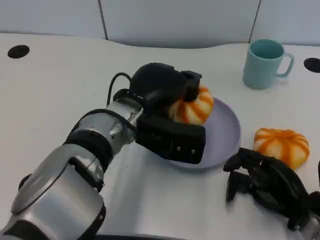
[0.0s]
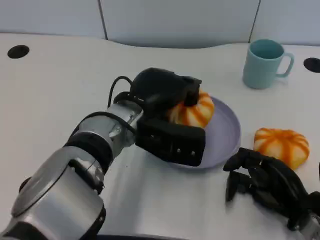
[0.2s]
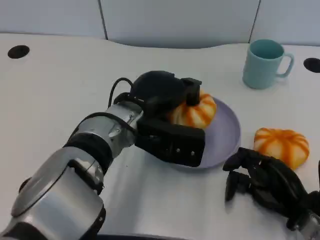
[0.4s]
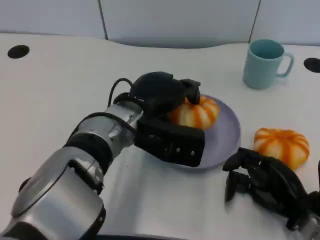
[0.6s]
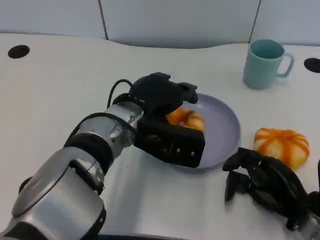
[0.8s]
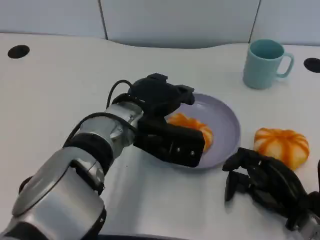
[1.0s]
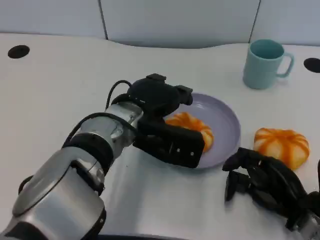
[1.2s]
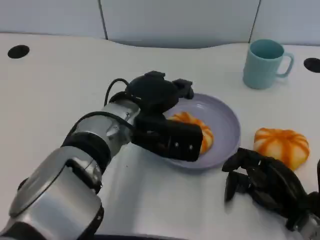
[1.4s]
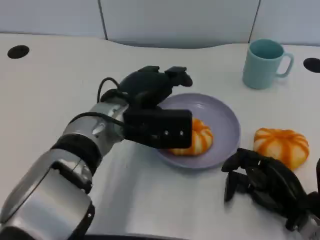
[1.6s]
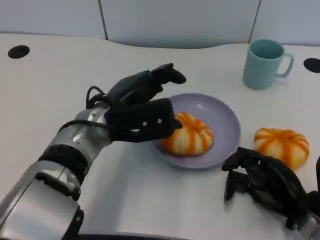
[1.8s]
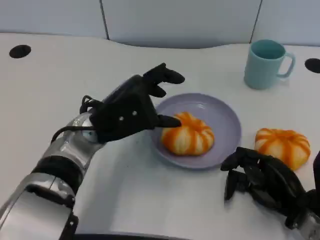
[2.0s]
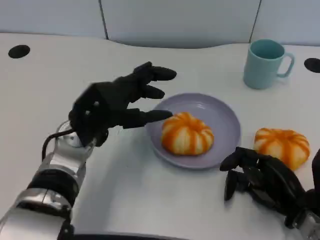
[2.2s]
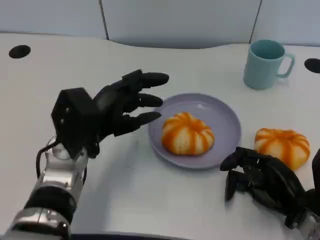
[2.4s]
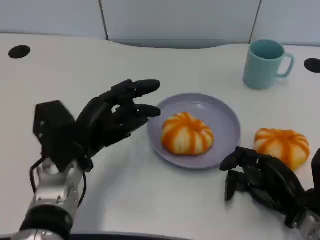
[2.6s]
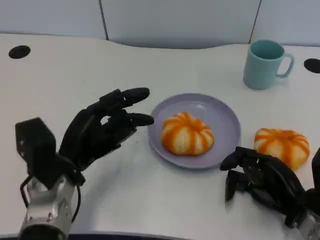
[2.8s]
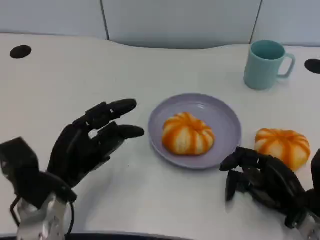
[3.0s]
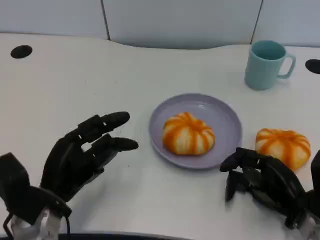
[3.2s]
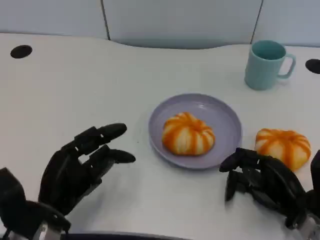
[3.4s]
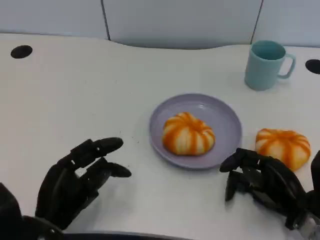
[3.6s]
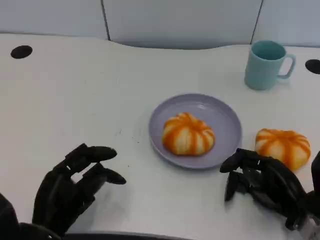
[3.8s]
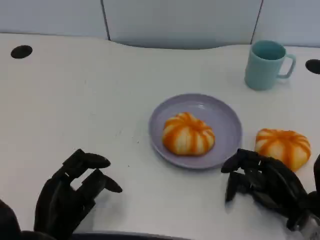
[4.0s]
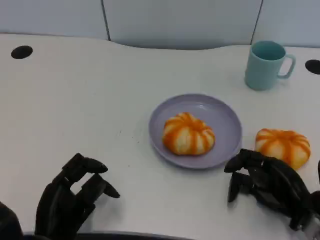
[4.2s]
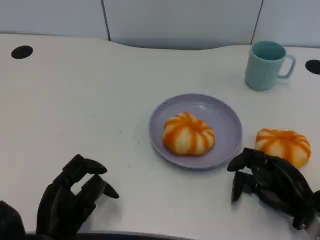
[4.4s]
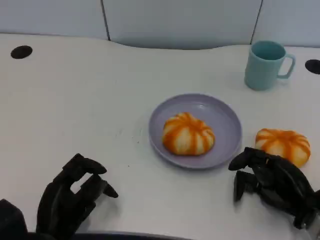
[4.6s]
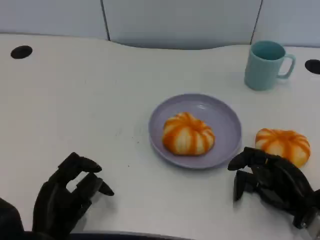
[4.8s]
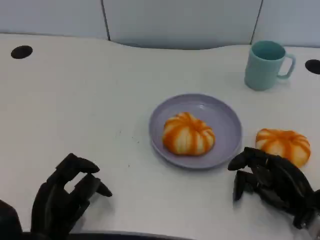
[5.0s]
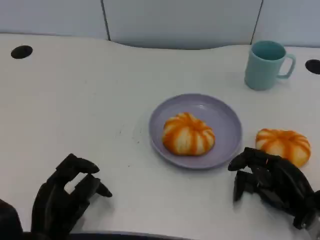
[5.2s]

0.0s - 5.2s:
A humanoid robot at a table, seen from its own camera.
Task of the whole recording: Grasp the bread from the table and place it into the plate.
1.8s - 3.4s: The left hand is displaced backward, to the left and downward by roughly 15 cm.
3.4s - 5.2s: The hands move only a little.

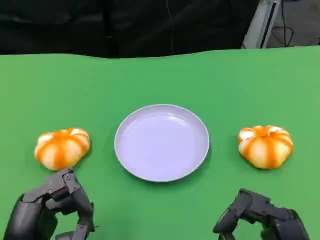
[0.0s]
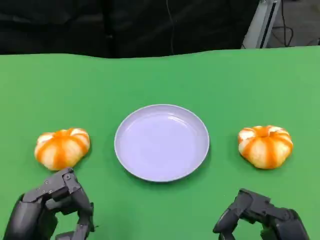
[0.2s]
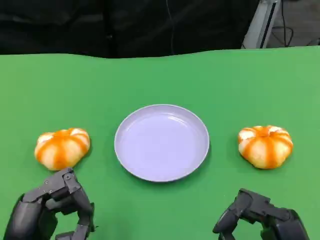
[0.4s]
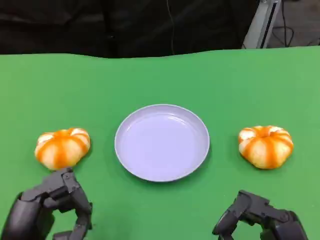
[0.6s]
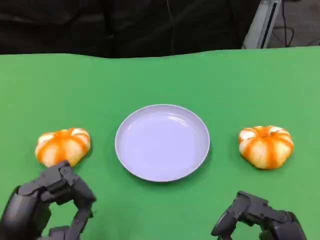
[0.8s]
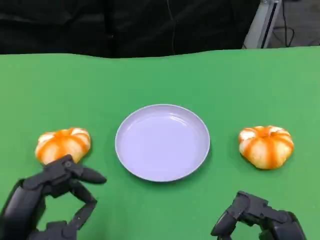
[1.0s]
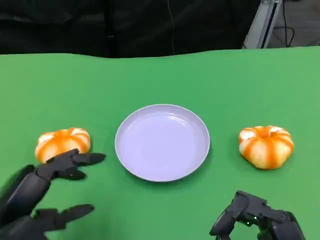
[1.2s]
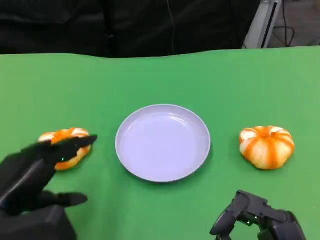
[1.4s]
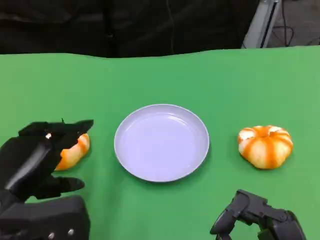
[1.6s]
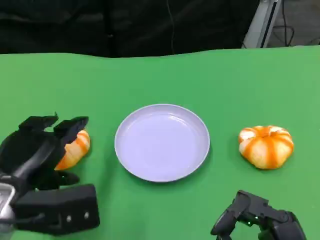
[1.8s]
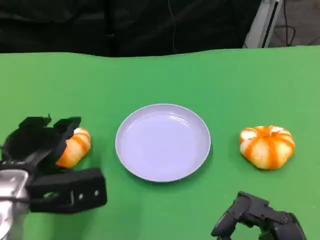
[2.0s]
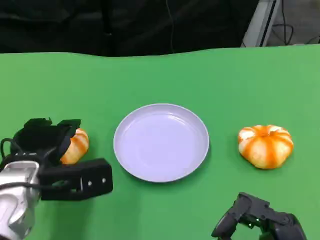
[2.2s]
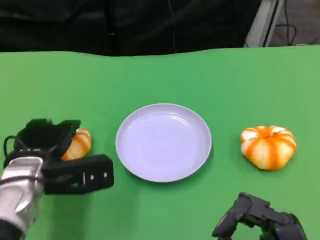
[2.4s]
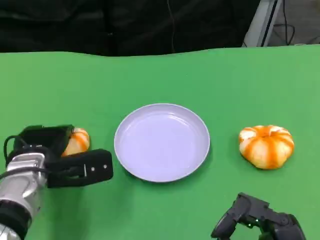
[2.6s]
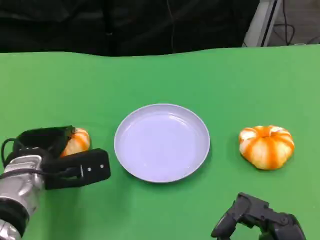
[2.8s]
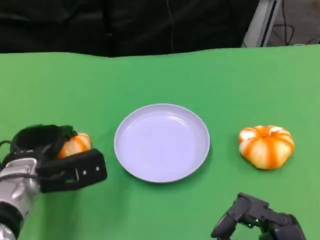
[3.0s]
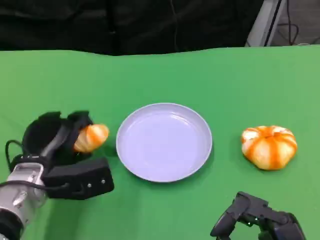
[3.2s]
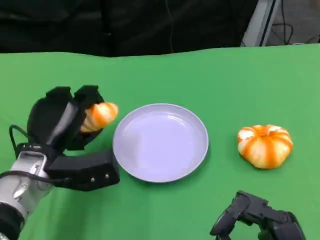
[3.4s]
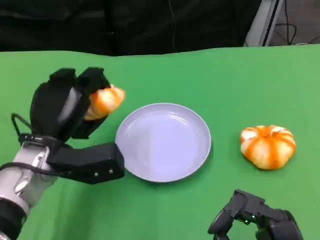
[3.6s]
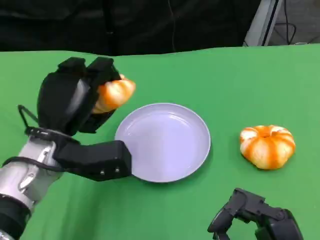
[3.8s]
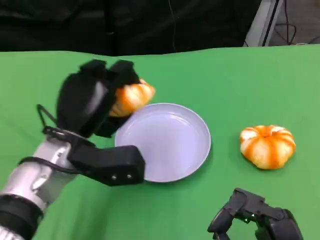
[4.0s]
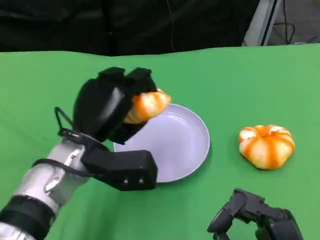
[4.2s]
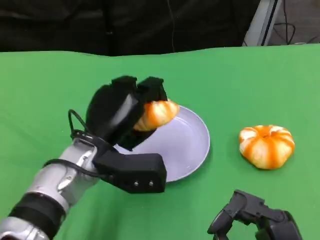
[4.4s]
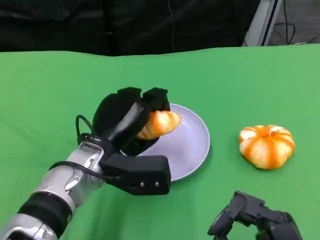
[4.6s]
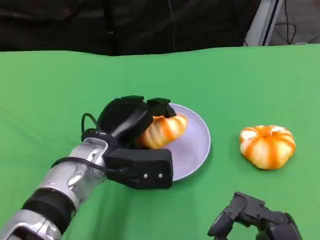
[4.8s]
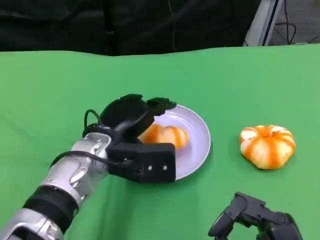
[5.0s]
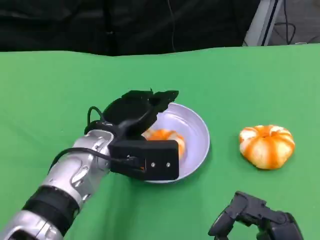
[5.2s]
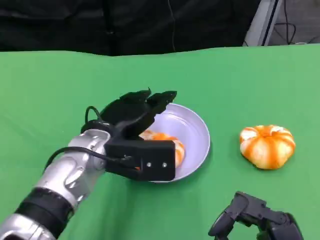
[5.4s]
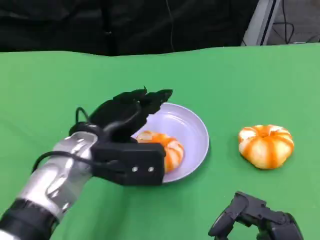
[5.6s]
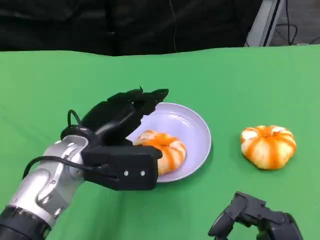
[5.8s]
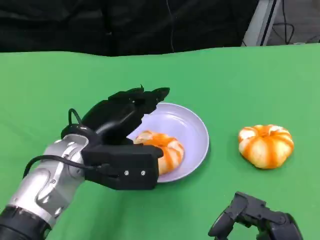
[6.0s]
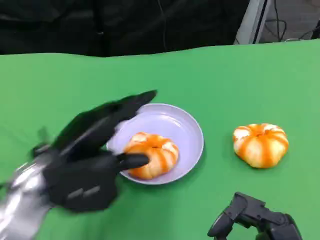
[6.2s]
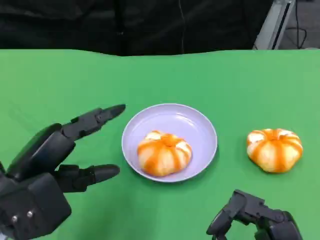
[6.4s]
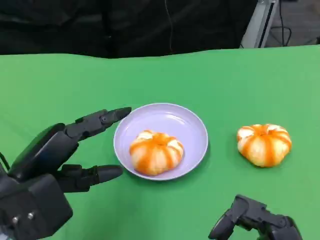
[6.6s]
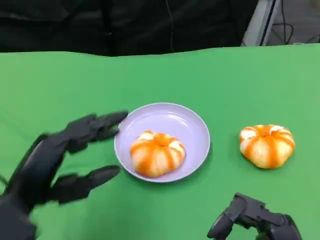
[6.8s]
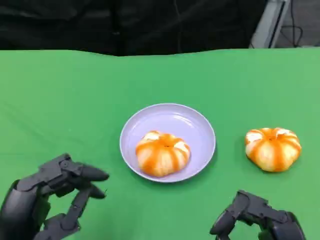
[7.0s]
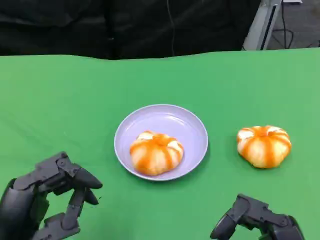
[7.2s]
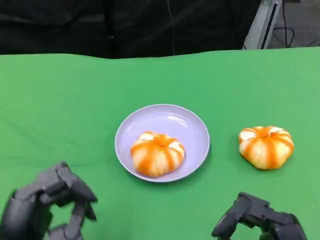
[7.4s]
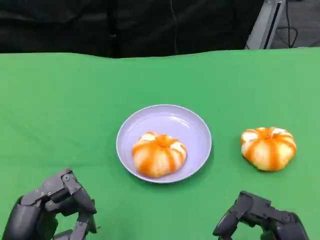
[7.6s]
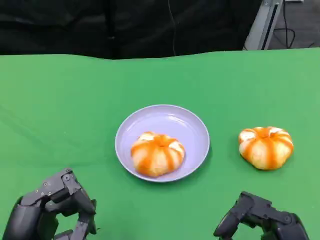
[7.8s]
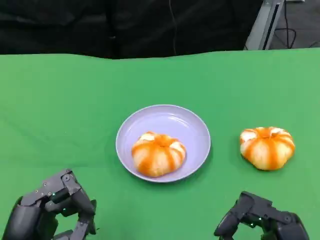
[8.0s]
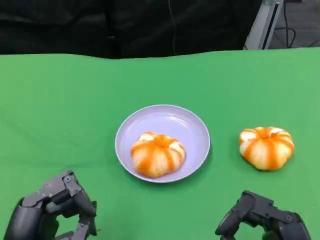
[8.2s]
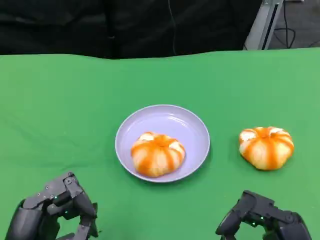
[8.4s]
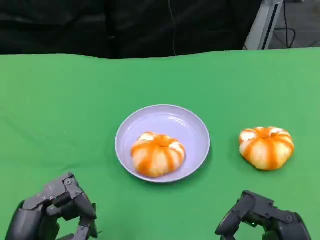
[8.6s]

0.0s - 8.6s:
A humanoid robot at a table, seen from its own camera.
Task of the whole recording: Grasp the bread from the table and place it into the plate.
0.0s - 1.4s: The left hand goes roughly 5 cm forward.
1.4s - 2.8s: The left hand shifts roughly 15 cm forward and downward.
2.8s - 4.4s: The left hand is displaced to the right by some 10 cm.
5.8s - 7.2s: The left hand moves backward and to the left, about 15 cm.
7.2s - 8.6s: The hands stay close to where they were, moving slightly.

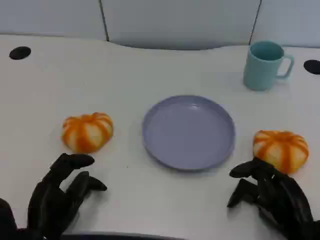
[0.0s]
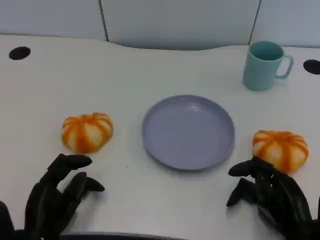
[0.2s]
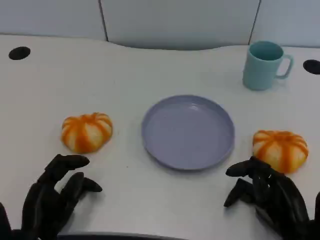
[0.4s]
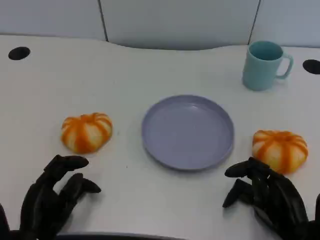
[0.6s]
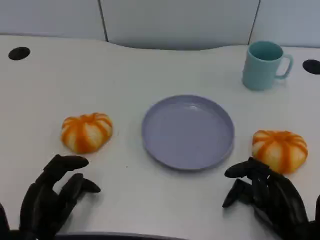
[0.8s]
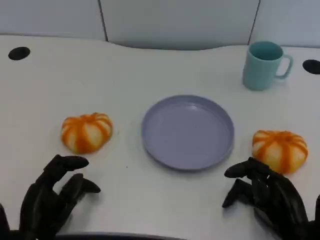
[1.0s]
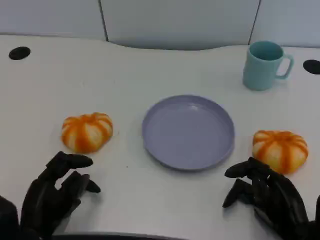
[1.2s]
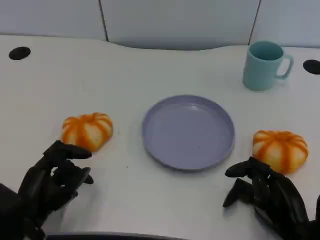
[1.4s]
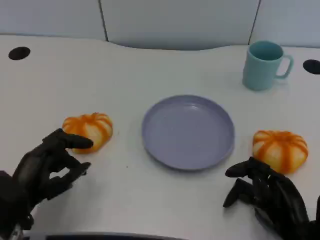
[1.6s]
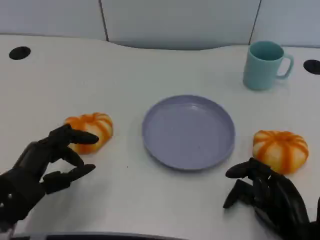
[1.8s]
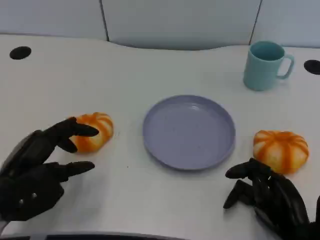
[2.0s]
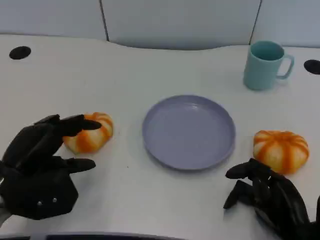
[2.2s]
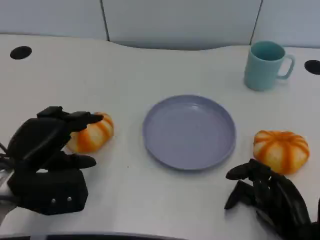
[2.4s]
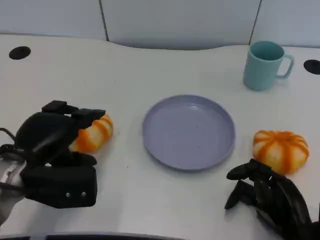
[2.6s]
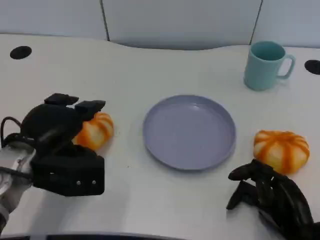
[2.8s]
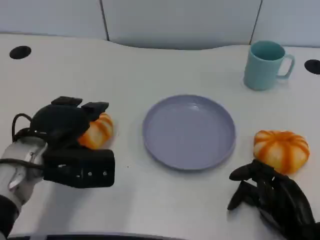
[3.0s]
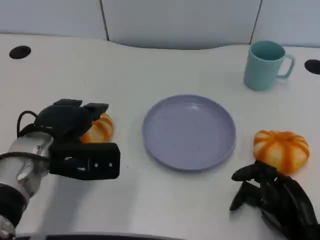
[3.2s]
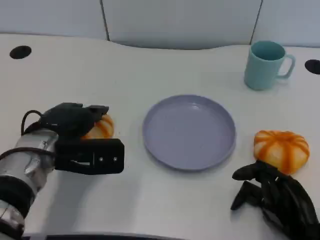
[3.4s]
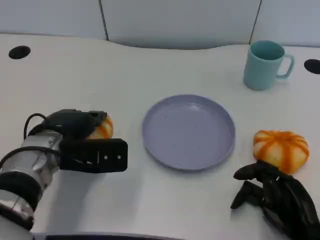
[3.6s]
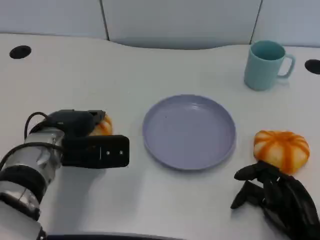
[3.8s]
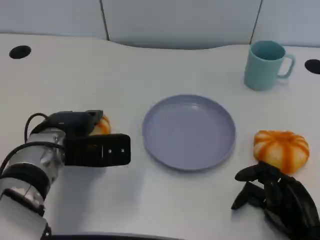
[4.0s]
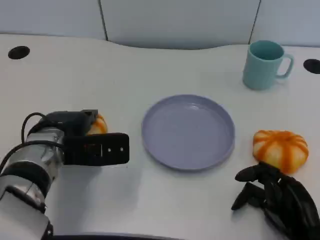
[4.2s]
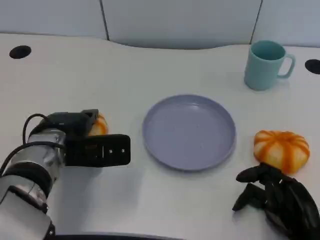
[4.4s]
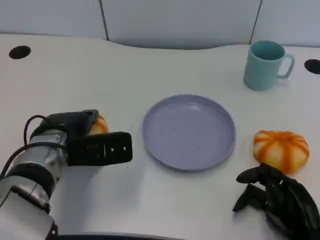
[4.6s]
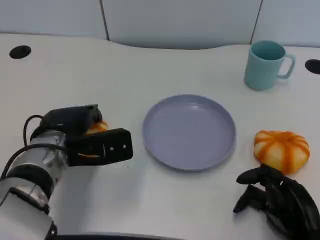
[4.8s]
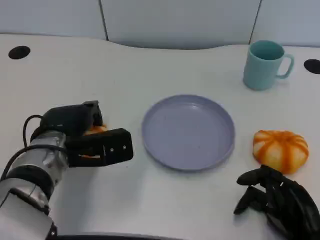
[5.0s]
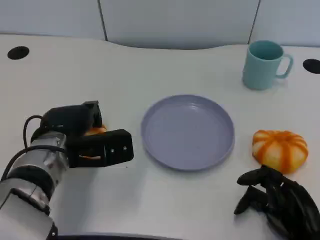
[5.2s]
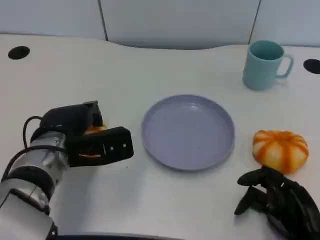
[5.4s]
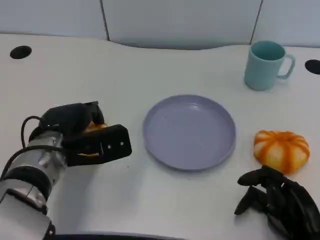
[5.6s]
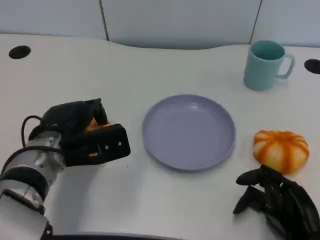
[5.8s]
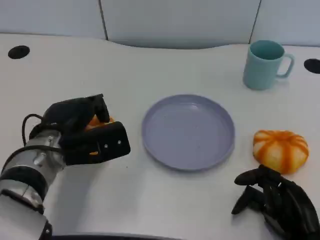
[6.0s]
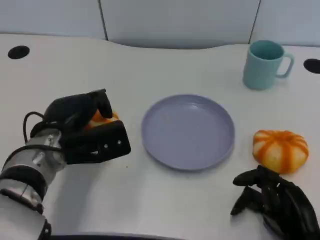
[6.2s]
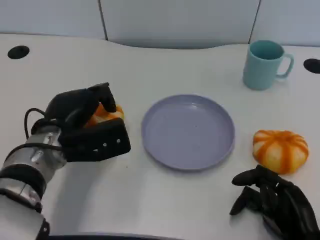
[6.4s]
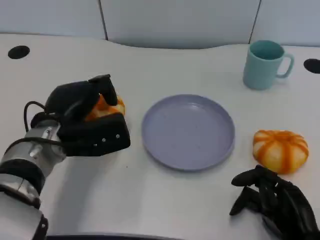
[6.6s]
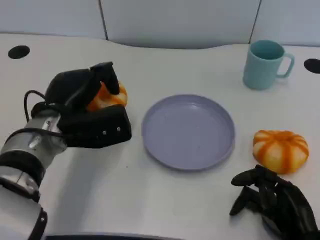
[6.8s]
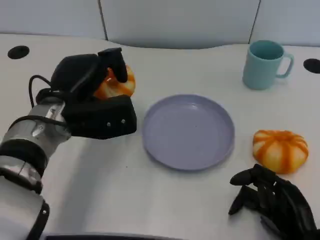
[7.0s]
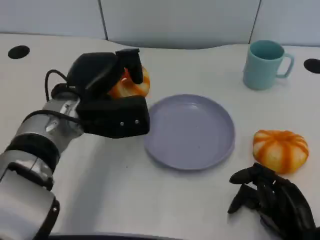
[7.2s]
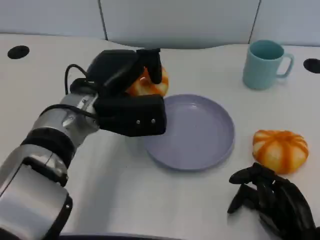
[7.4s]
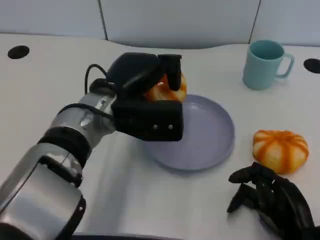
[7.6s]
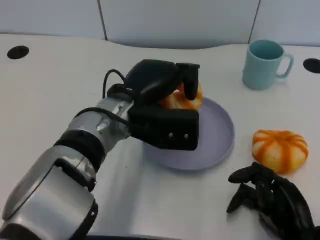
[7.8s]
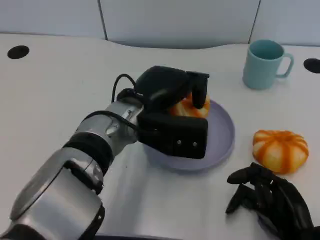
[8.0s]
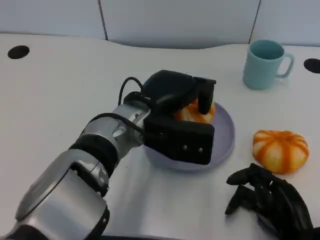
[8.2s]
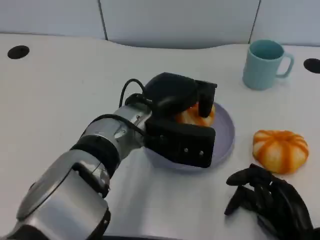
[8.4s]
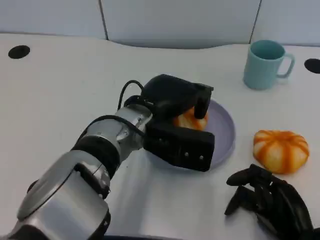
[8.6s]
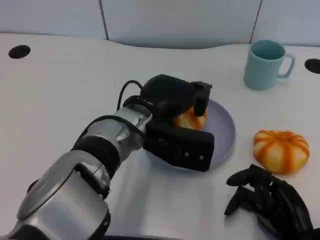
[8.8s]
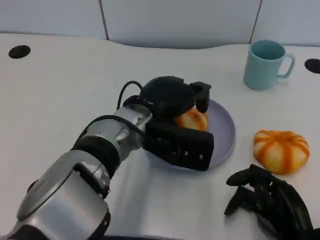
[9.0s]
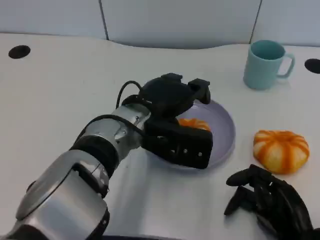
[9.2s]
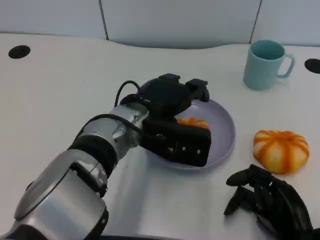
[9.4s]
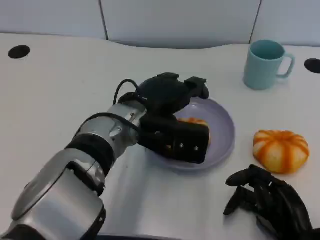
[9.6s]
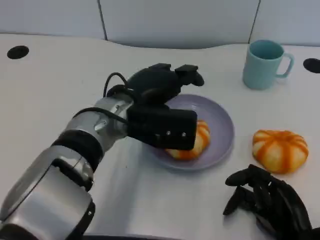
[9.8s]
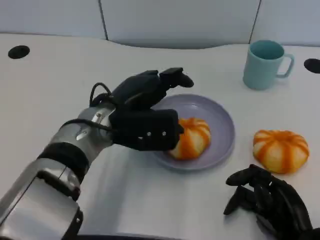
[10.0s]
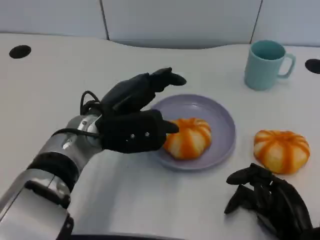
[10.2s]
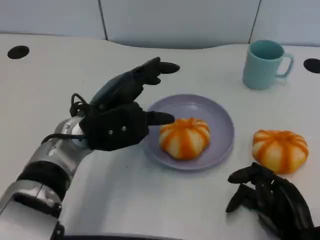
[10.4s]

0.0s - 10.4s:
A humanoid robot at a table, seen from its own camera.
Task of the whole recording: Grasp the bread from the table and place it into the plate.
1.4s - 3.0s: The left hand travels forward and upward by about 10 cm.
3.0s - 4.4s: There are only small adjustments of the hands.
6.0s - 7.4s: The left hand shifts approximately 10 cm to the right and upward.
7.4s - 9.0s: The left hand goes about 5 cm to the right.
9.0s - 10.4s: The left hand moves to the left, about 10 cm.
